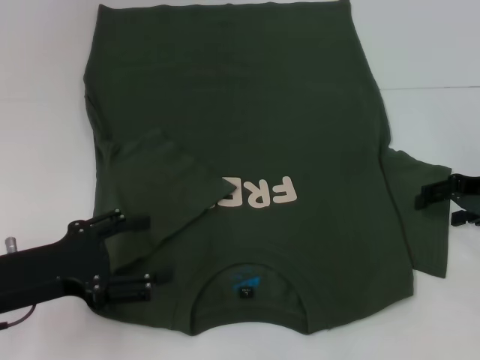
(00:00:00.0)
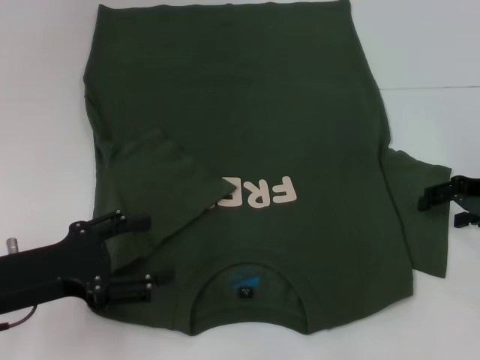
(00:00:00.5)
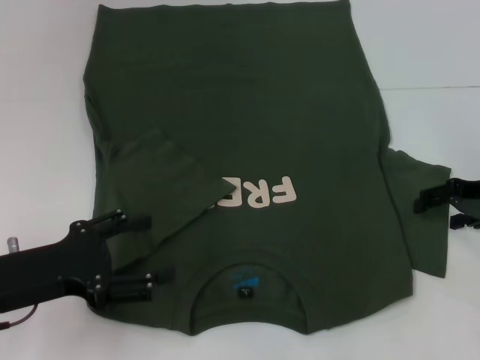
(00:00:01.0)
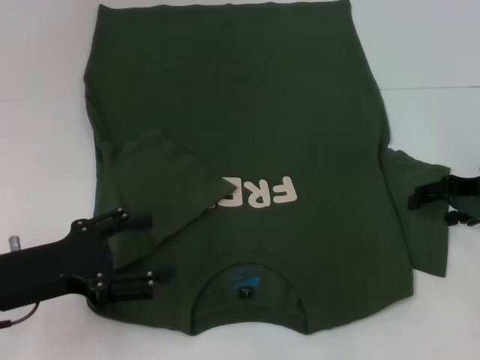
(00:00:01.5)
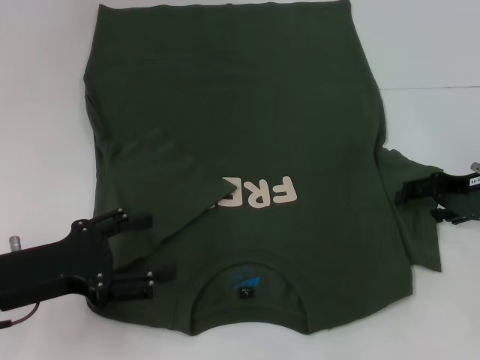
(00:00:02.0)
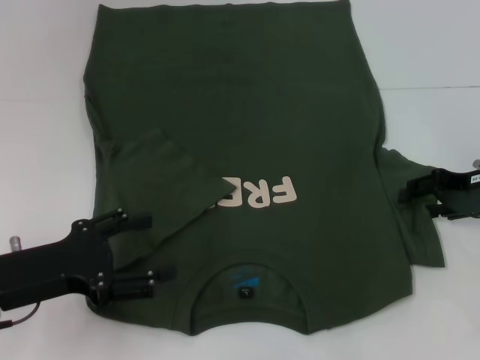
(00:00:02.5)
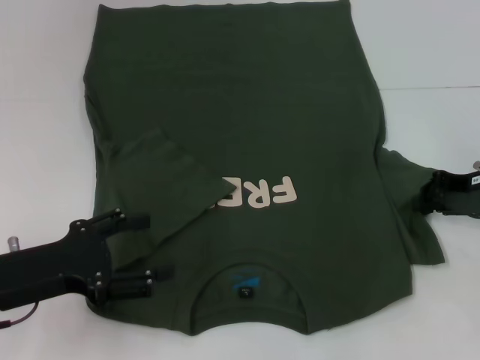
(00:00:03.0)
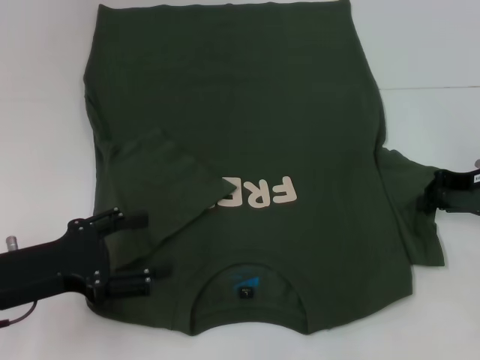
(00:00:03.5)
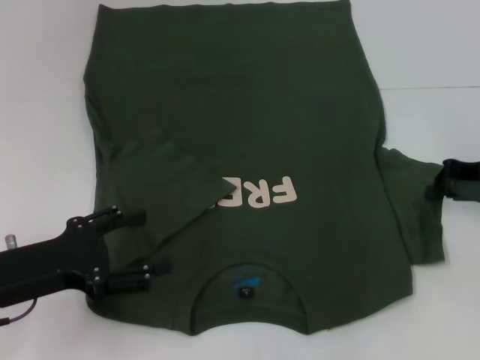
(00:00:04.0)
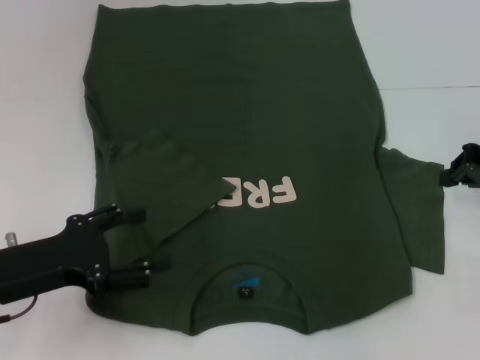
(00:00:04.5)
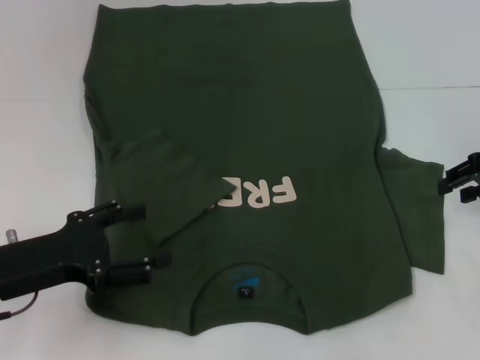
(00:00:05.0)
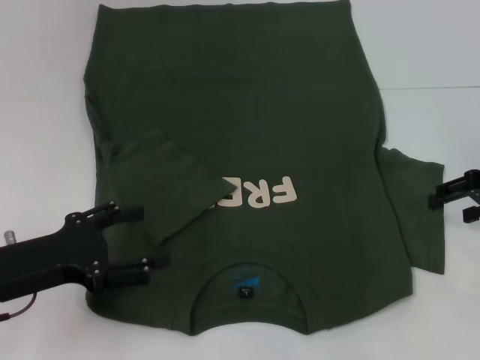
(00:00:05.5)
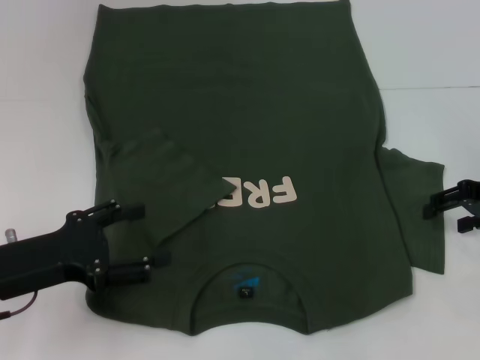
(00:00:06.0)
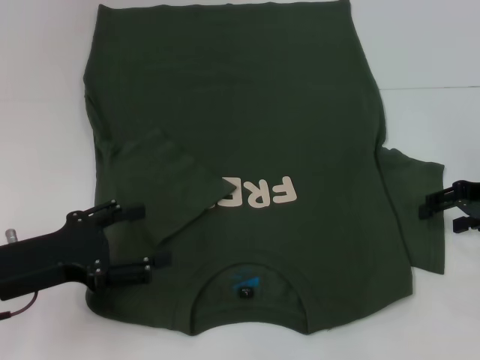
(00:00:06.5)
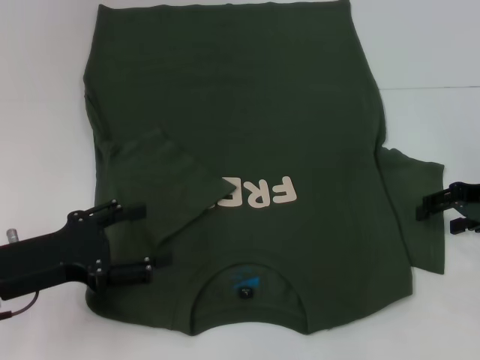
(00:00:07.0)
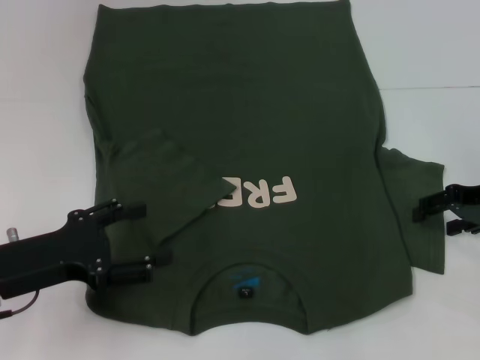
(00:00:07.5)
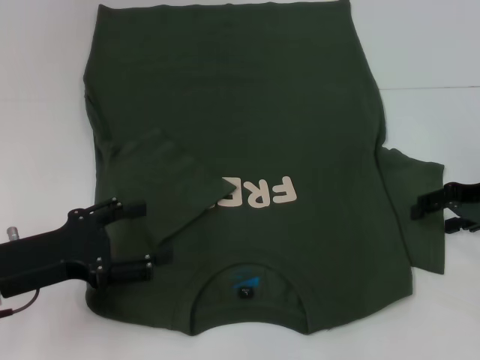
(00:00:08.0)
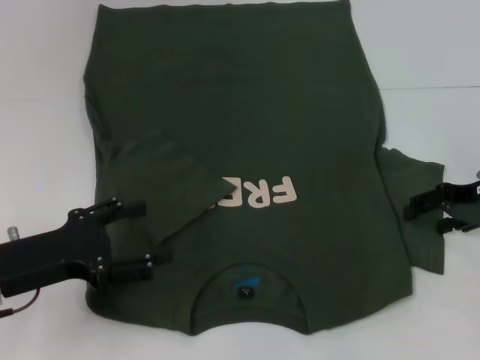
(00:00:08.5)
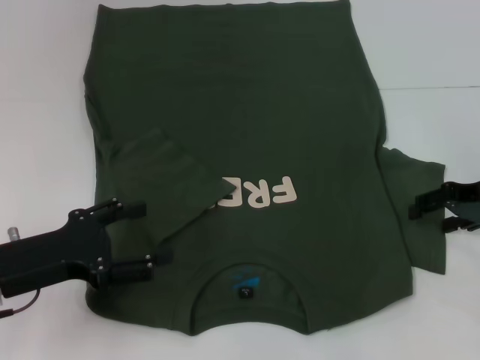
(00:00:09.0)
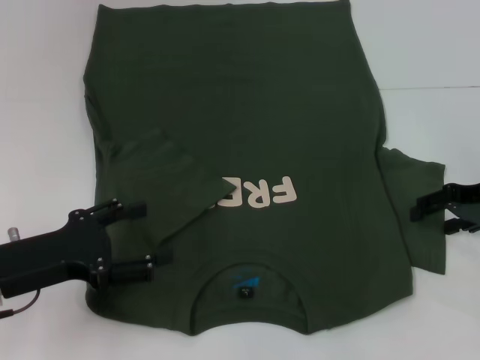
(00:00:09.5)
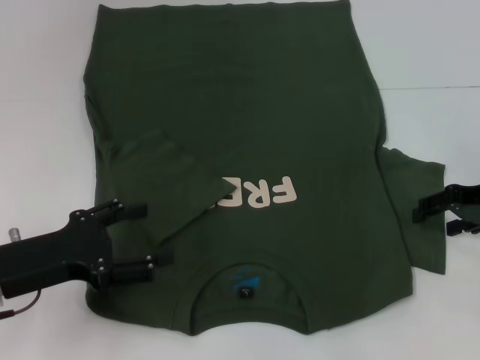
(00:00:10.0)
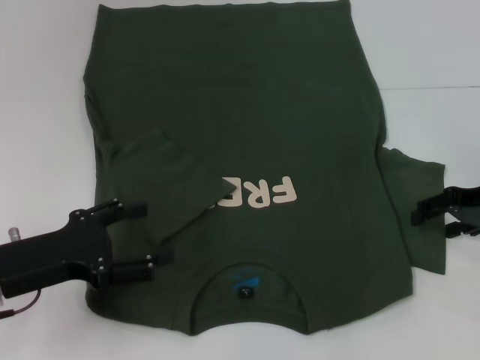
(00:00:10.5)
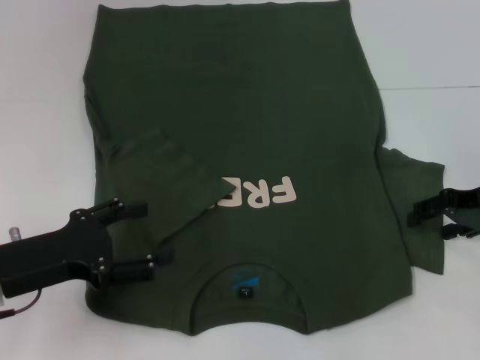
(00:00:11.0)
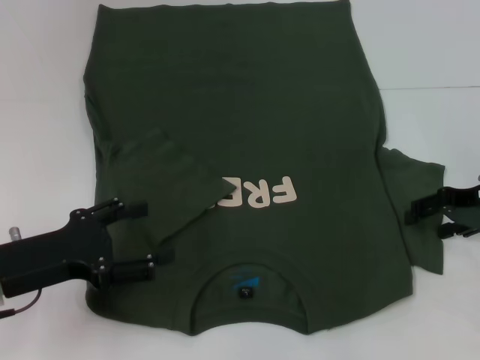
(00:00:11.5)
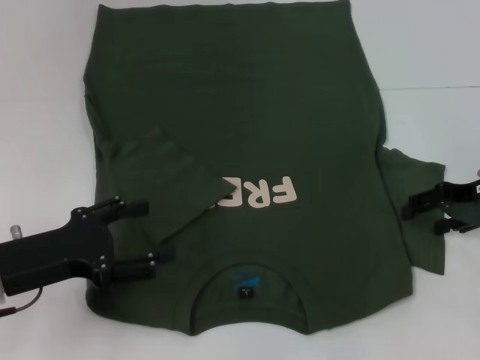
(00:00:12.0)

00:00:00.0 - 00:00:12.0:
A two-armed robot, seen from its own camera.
00:00:00.0 - 00:00:02.0: The grippers move only a little.
00:00:02.0 - 00:00:04.0: The right gripper closes up.
00:00:04.0 - 00:00:06.0: The right gripper opens its fingers.
00:00:06.0 - 00:00:08.0: The grippers make only small movements.
00:00:08.0 - 00:00:12.0: Both grippers stay about where they are.

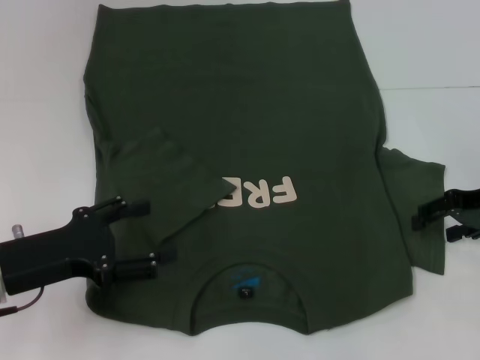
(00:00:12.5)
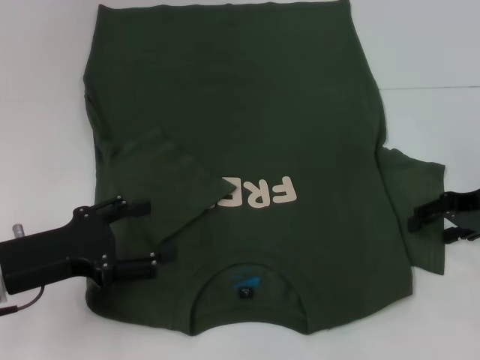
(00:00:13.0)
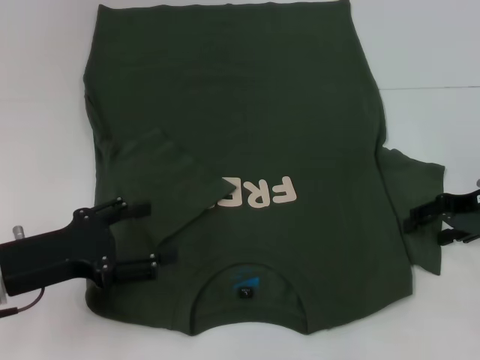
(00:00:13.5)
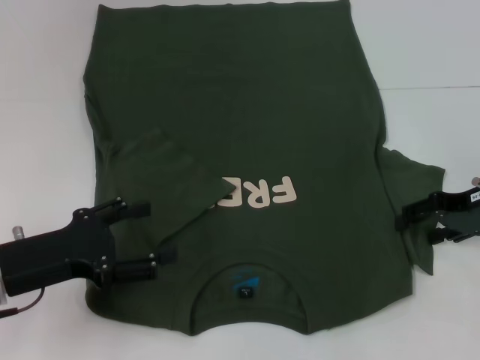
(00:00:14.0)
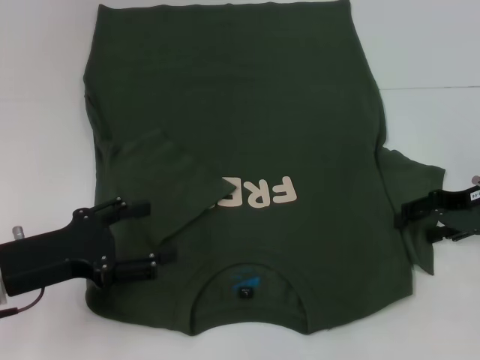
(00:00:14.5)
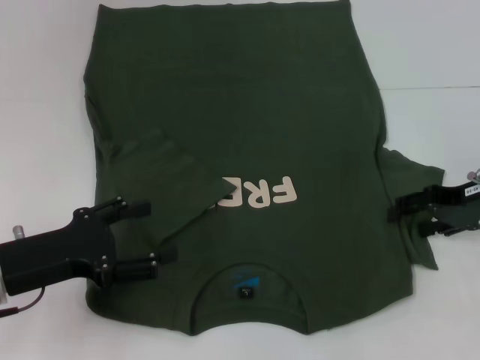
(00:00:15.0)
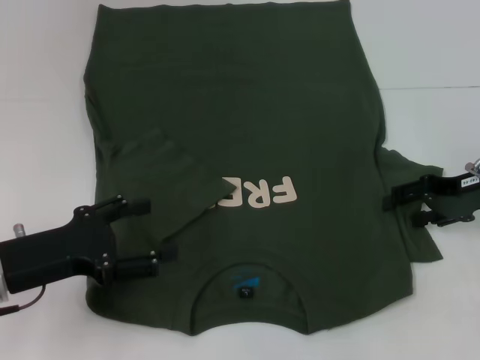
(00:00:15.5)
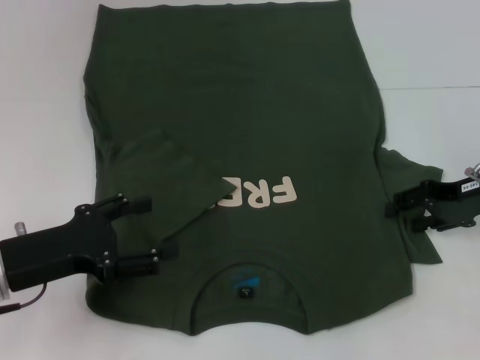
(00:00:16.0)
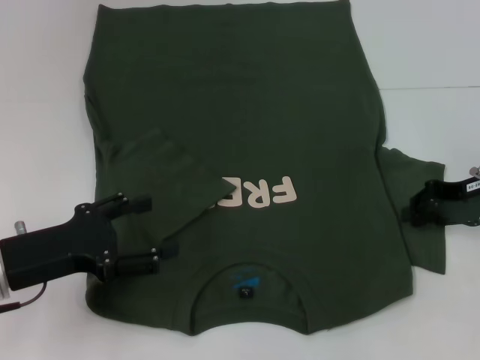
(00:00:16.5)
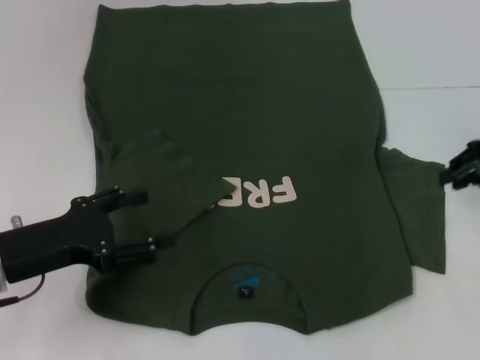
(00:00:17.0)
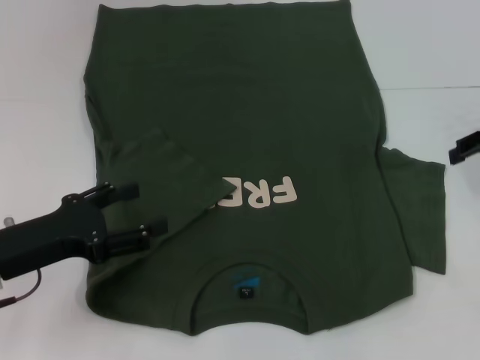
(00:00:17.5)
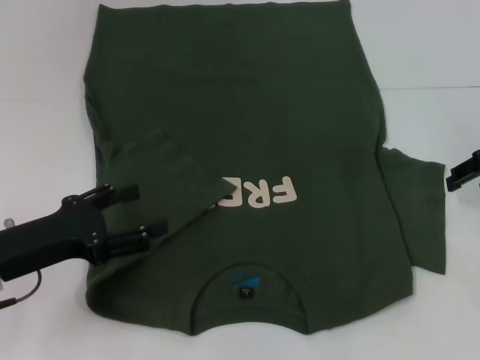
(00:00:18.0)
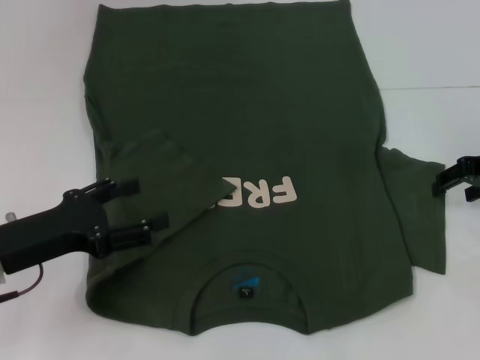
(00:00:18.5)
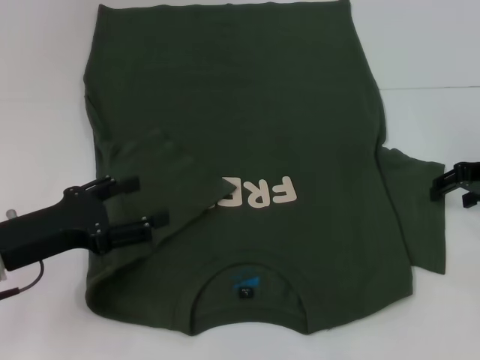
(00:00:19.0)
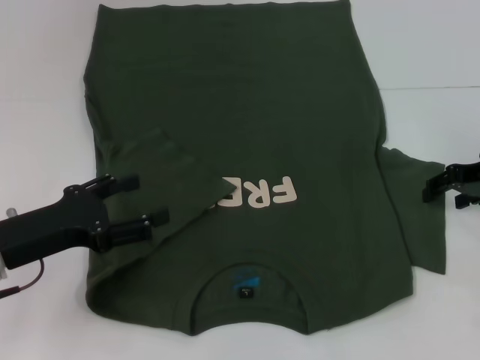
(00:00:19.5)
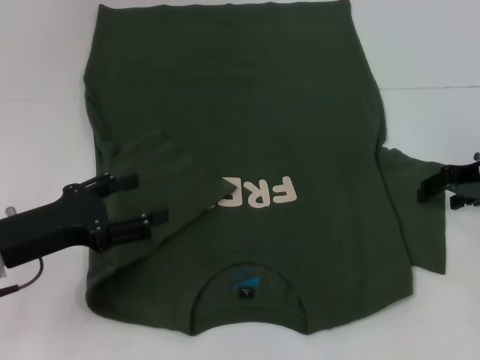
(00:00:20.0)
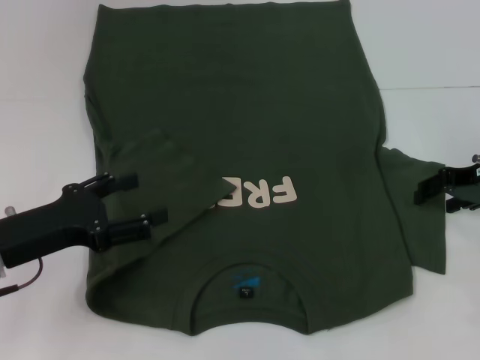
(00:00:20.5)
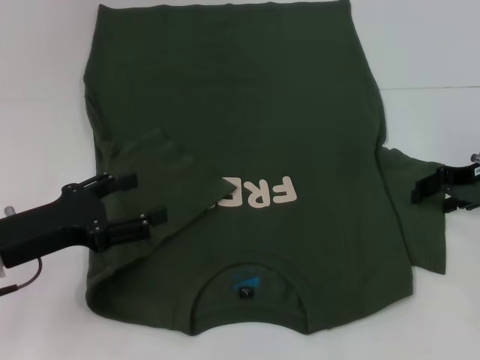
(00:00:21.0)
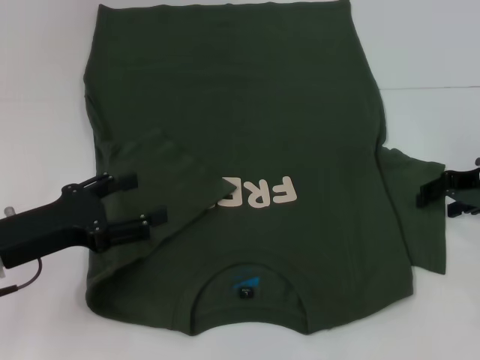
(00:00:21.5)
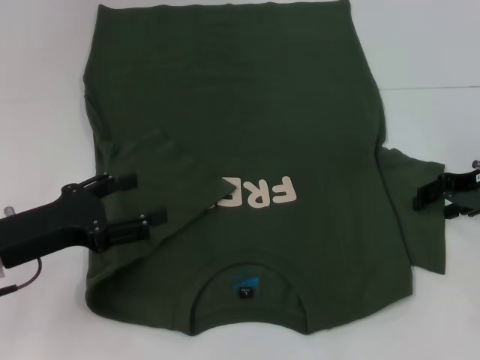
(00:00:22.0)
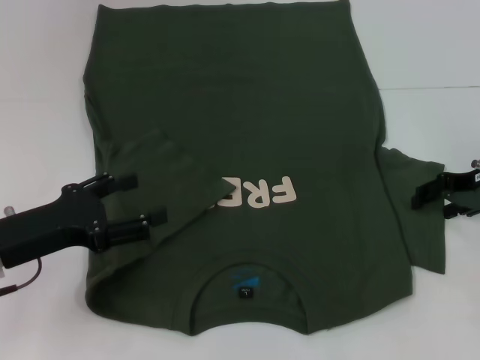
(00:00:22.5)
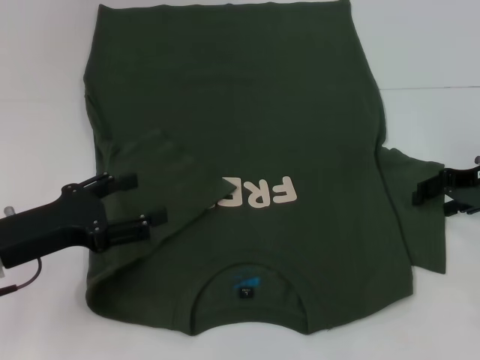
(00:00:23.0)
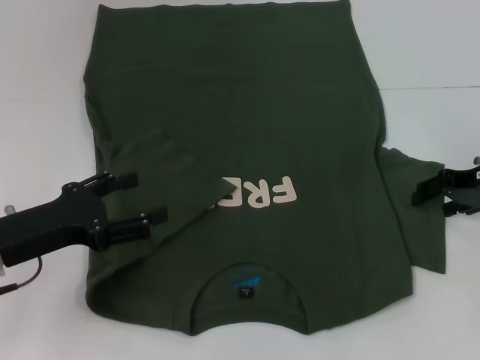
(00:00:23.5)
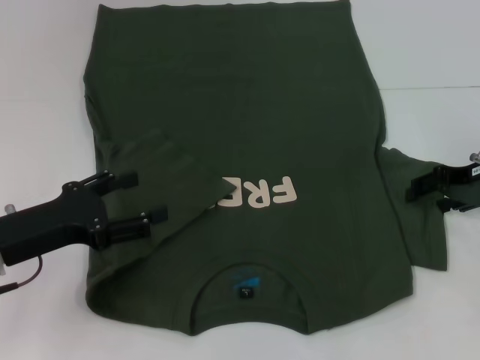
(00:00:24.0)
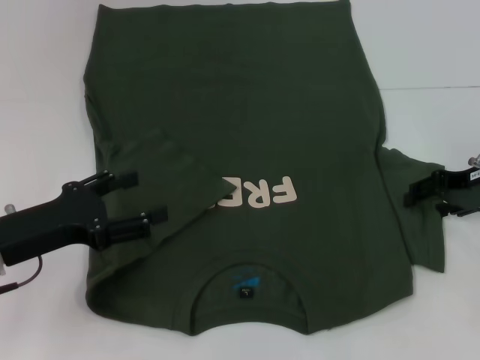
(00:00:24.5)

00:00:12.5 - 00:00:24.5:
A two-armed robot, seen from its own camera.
00:00:12.5 - 00:00:14.5: Both grippers stay put.
00:00:14.5 - 00:00:16.5: The grippers move only a little.
00:00:16.5 - 00:00:18.5: The right gripper closes, then opens again.
00:00:18.5 - 00:00:20.5: The grippers stay close to where they were, moving slightly.
00:00:20.5 - 00:00:22.5: The two grippers keep their place.
00:00:22.5 - 00:00:24.5: Both grippers stay put.

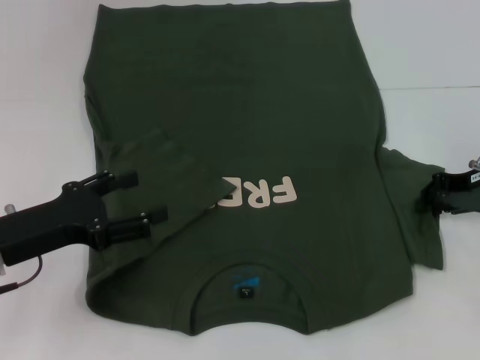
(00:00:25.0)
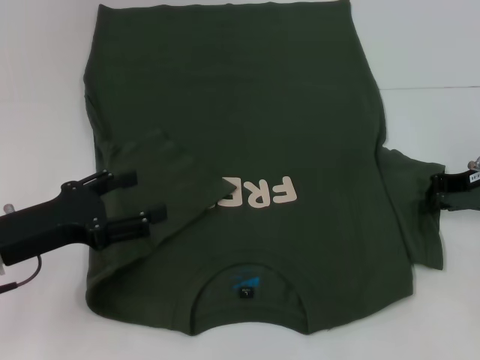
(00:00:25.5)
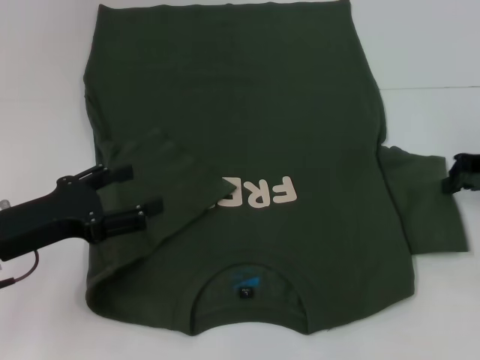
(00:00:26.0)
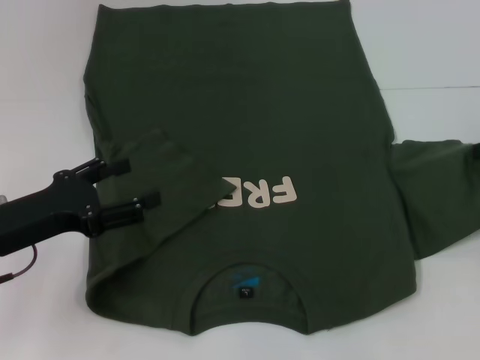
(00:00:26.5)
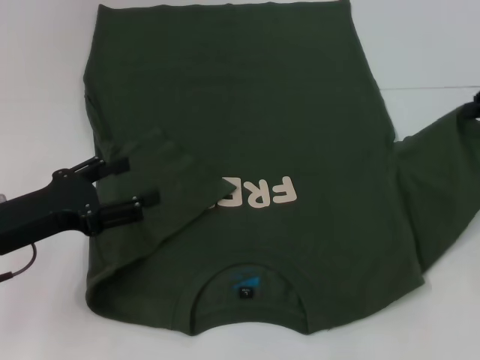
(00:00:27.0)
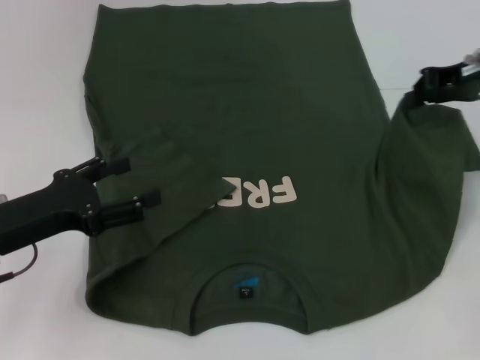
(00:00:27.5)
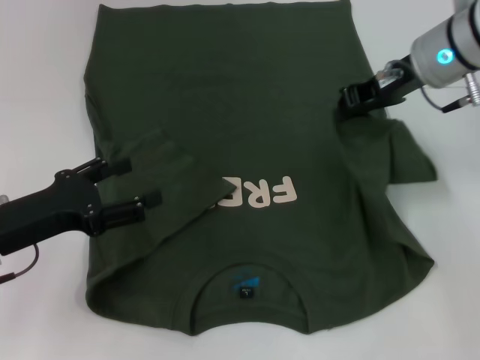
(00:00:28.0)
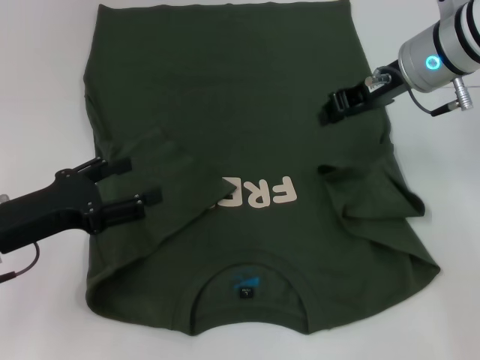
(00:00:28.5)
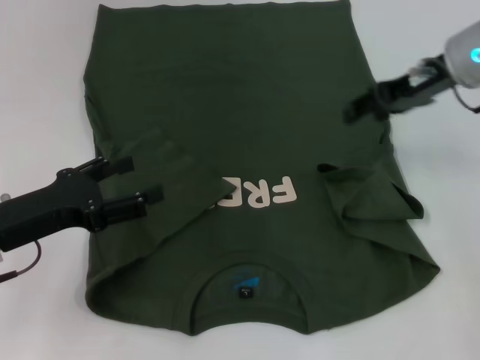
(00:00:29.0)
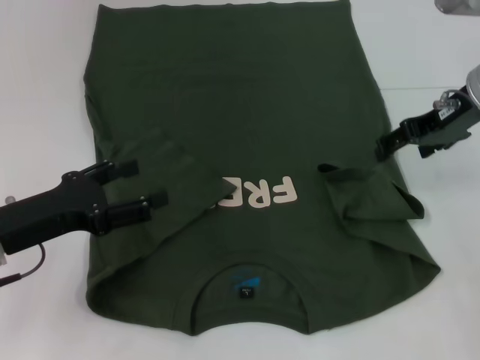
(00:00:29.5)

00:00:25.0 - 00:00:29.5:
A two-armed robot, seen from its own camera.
00:00:25.0 - 00:00:27.0: The right gripper shifts some 10 cm upward, and closes.
00:00:27.0 - 00:00:29.5: The right gripper moves to the left, approximately 10 cm, and opens up.
